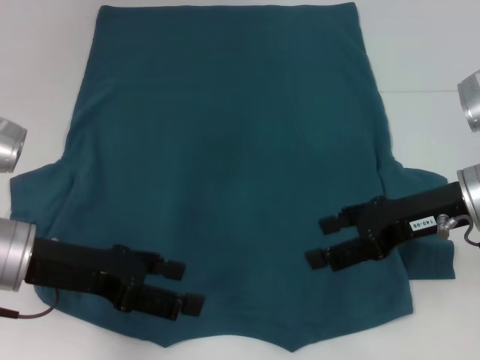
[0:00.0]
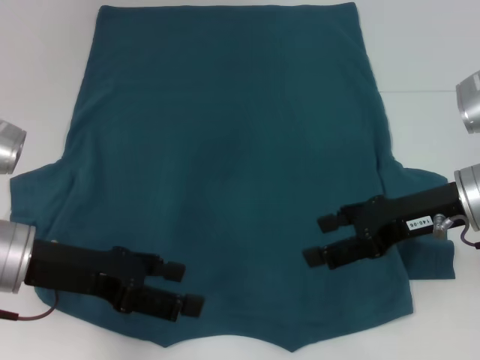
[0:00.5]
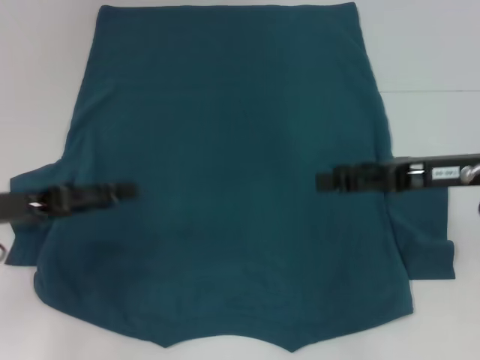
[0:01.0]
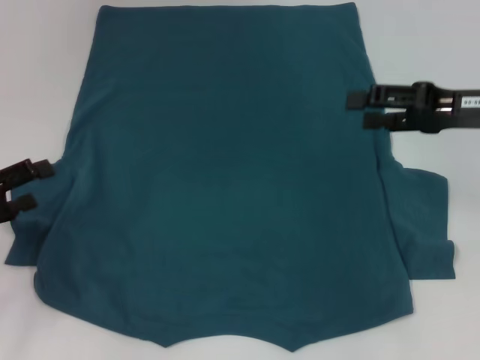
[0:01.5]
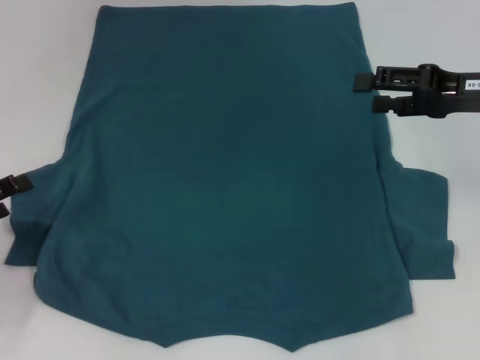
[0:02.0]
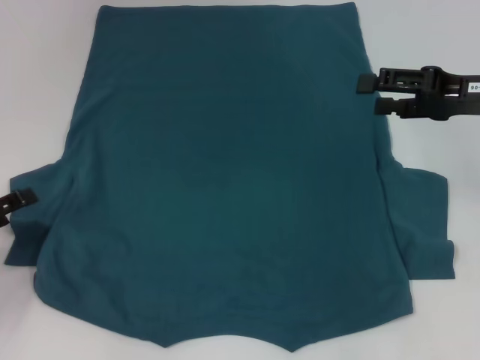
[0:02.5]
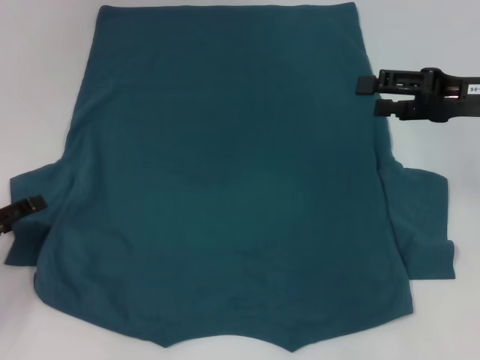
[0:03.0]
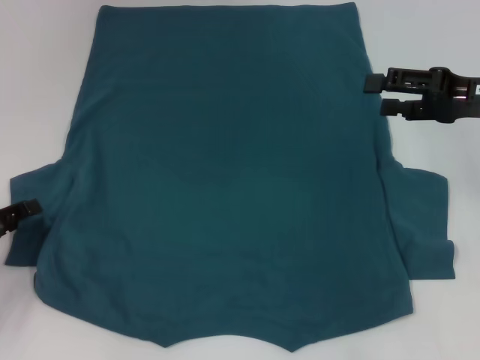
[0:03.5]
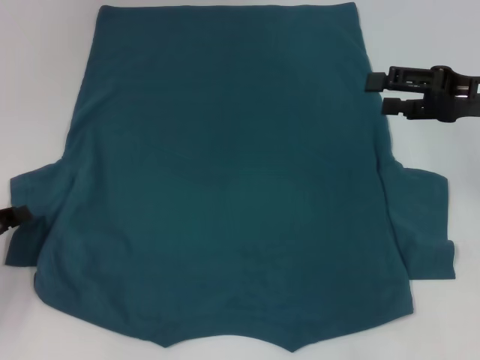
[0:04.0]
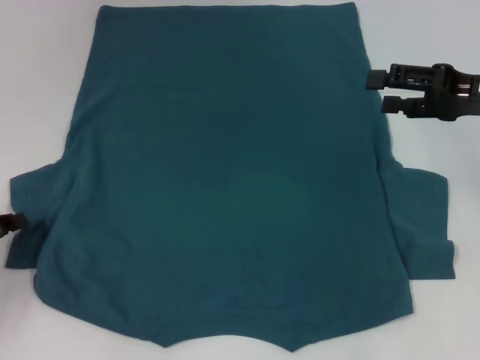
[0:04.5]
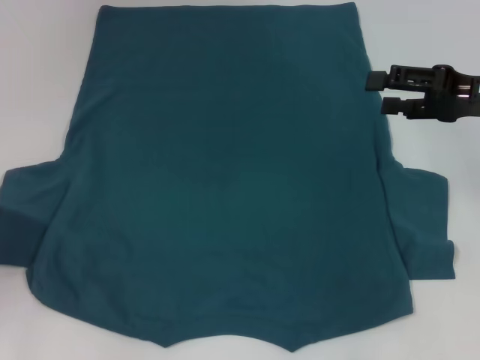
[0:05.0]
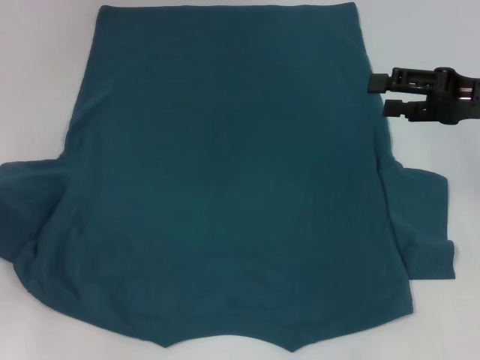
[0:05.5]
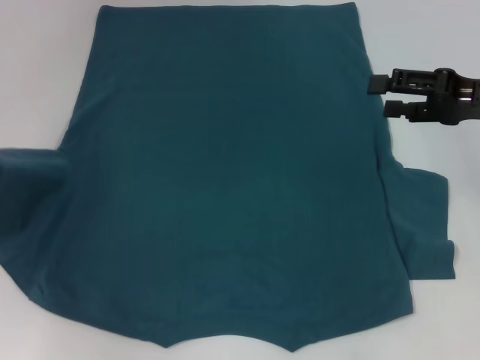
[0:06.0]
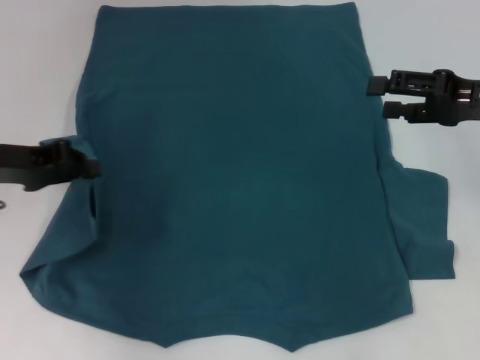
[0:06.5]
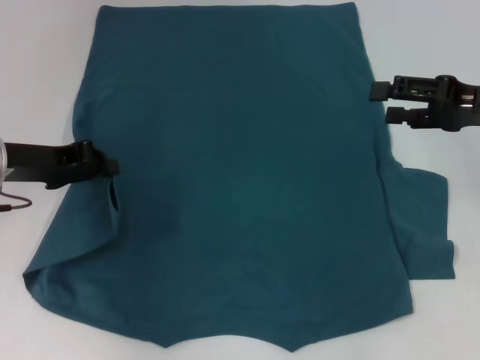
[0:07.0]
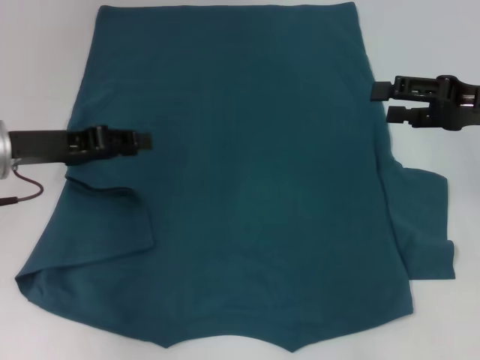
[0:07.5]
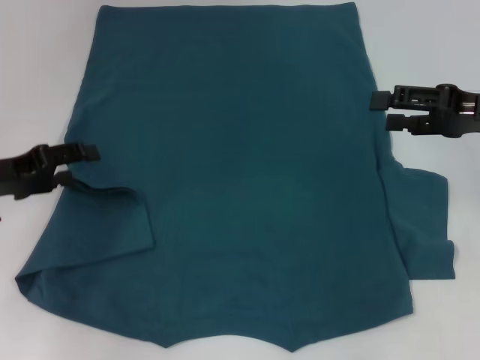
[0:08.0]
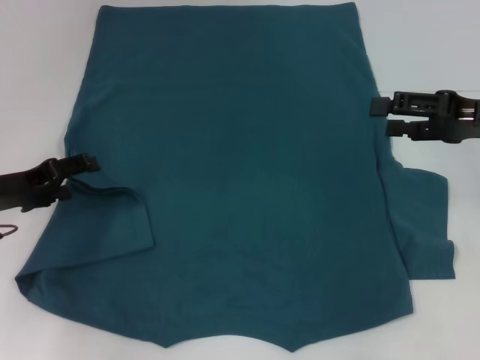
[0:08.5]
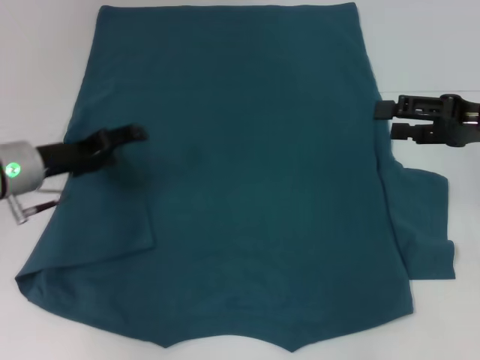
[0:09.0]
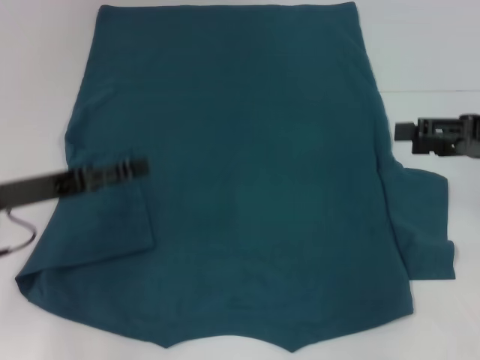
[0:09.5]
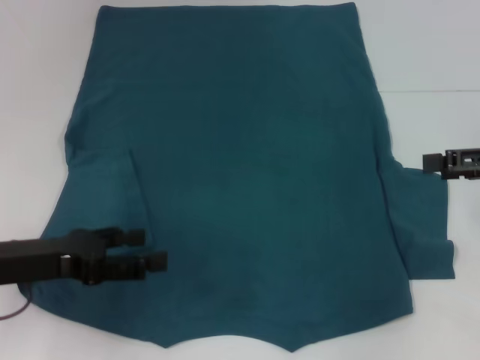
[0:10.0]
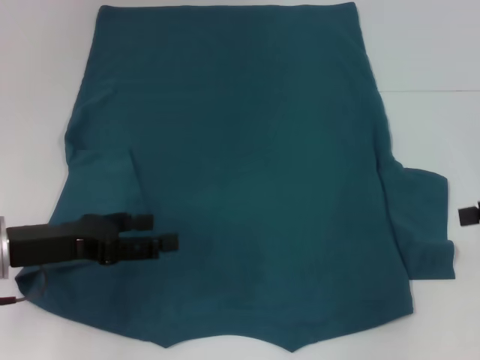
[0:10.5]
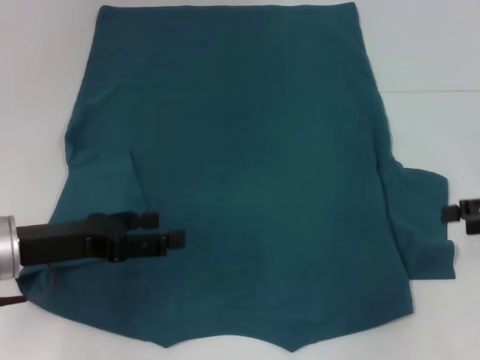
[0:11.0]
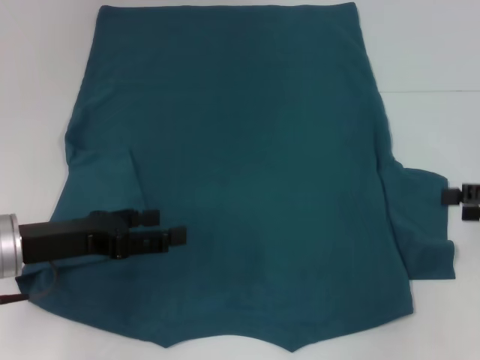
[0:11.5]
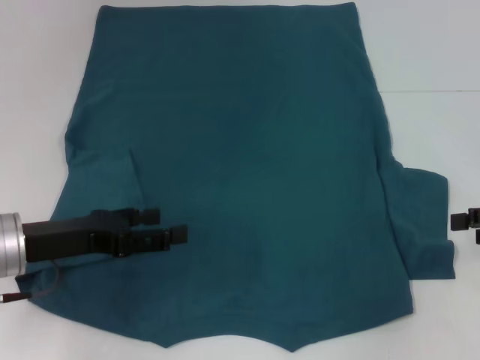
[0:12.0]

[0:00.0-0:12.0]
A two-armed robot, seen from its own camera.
Step, 0:00.0 to 0:09.0: Fold the bottom left sleeve with your left hand.
0:00.0 to 0:02.0: The right gripper heads to the right and forward, covering some 10 cm. Meanwhile the left gripper shifts approximately 15 cm to the left.
0:02.0 to 0:04.0: The left gripper closes its fingers.
0:04.0 to 0:06.0: The left gripper travels upward by about 10 cm, and closes up.
0:06.0 to 0:08.0: The left gripper shifts about 5 cm to the right, and opens its fingers.
0:08.0 to 0:10.0: The left gripper travels backward by approximately 5 cm, while the right gripper moves roughly 5 cm.
0:10.0 to 0:12.0: The right gripper moves roughly 5 cm.

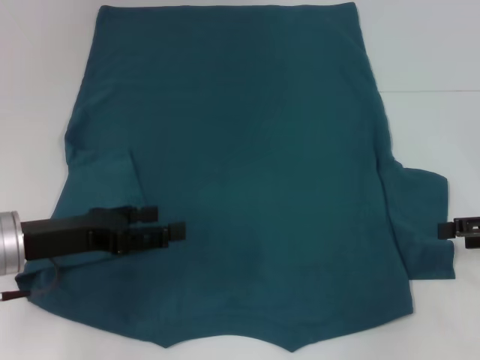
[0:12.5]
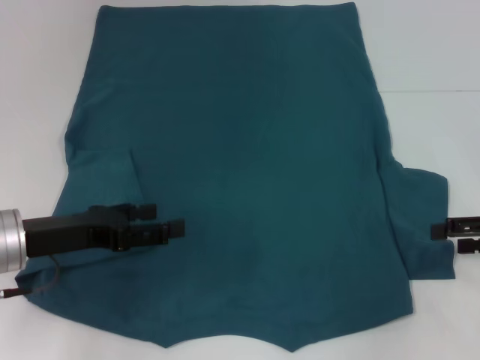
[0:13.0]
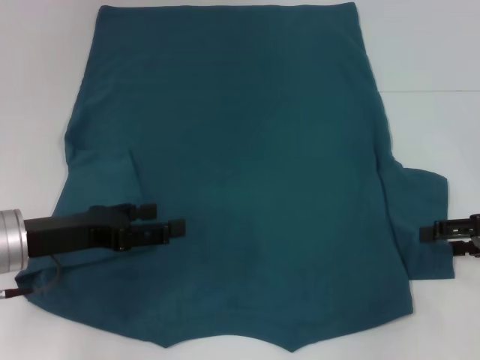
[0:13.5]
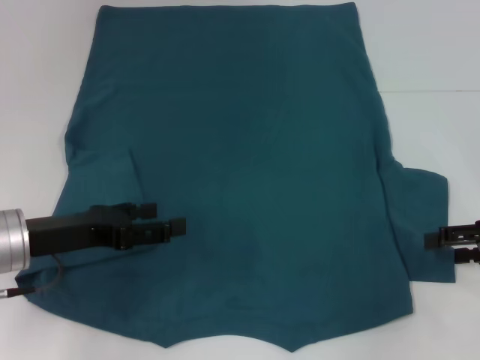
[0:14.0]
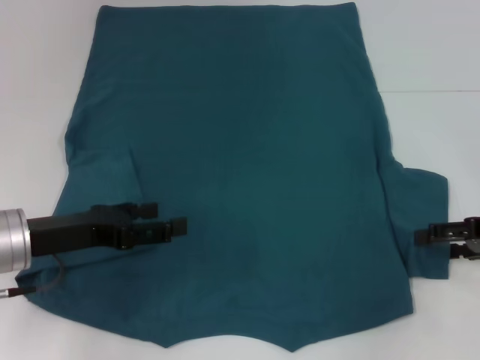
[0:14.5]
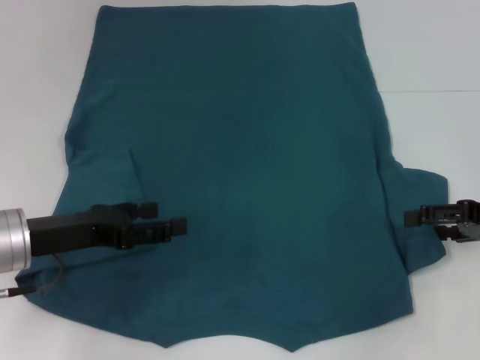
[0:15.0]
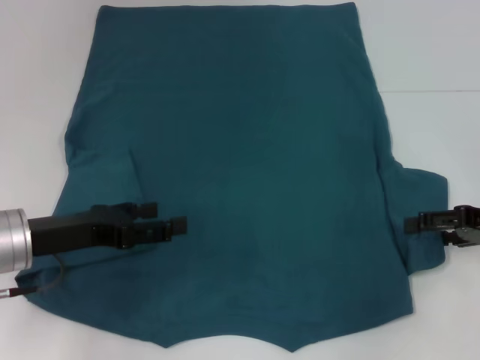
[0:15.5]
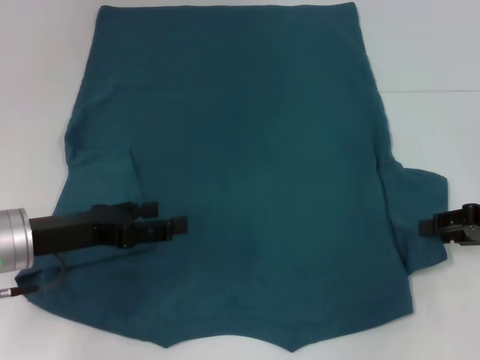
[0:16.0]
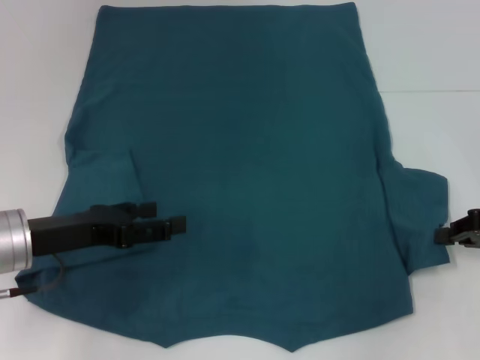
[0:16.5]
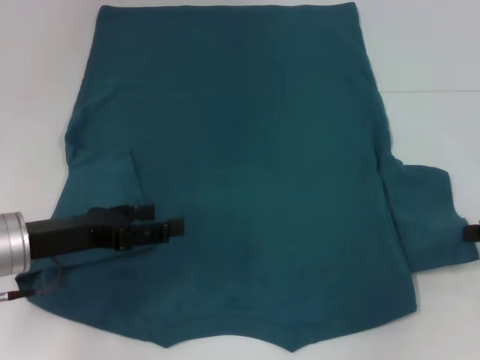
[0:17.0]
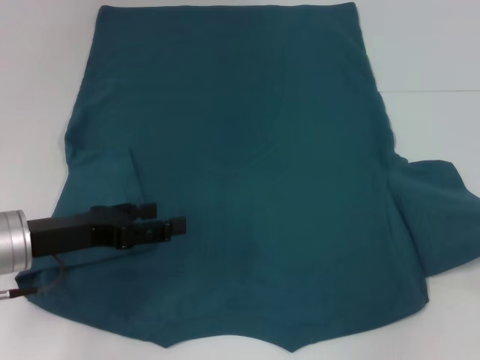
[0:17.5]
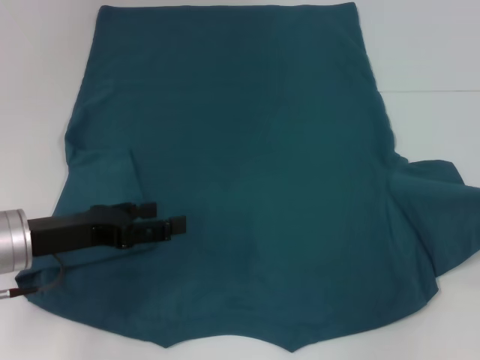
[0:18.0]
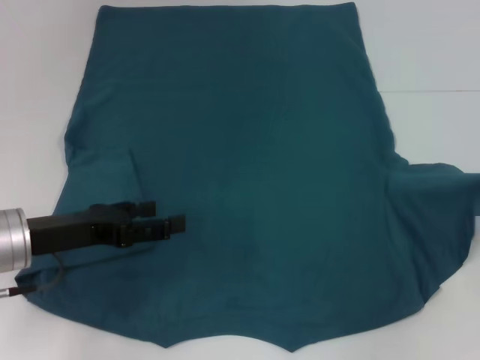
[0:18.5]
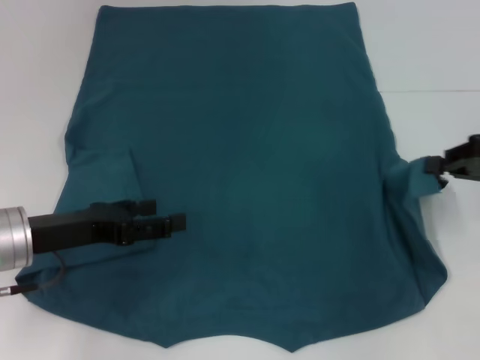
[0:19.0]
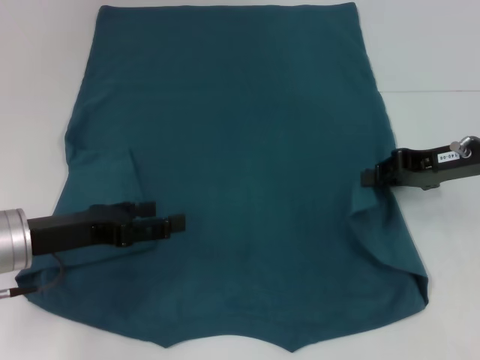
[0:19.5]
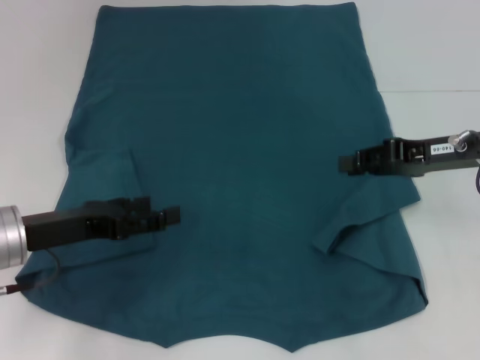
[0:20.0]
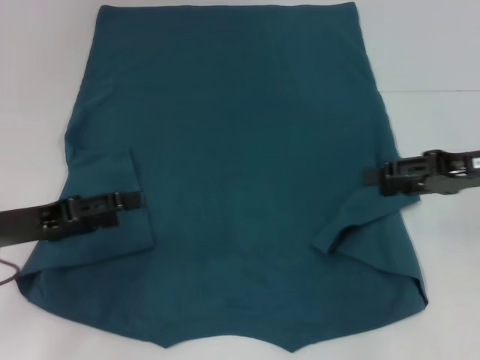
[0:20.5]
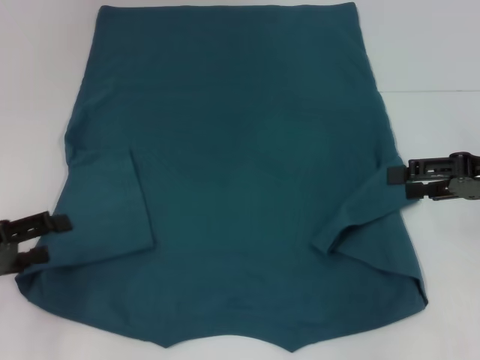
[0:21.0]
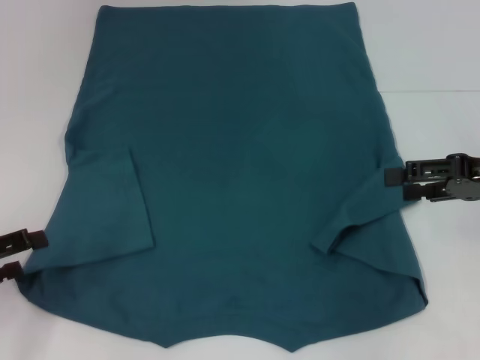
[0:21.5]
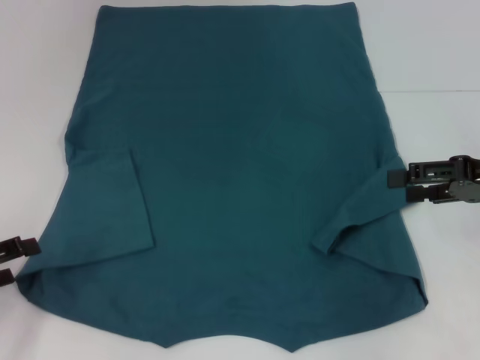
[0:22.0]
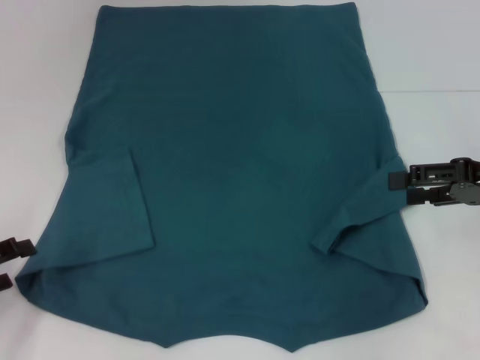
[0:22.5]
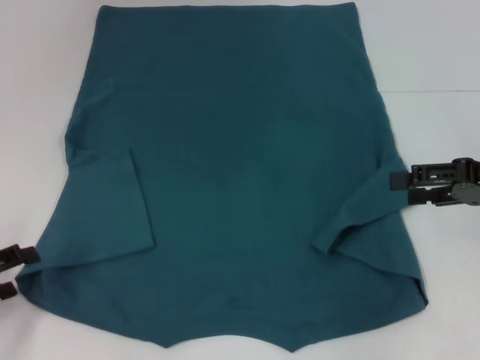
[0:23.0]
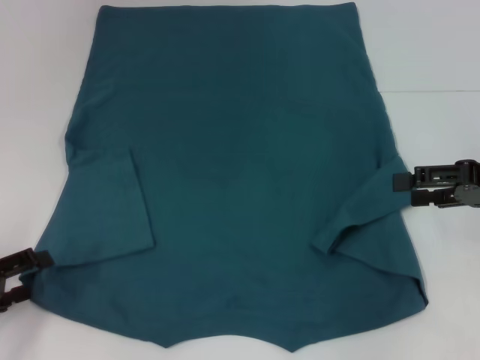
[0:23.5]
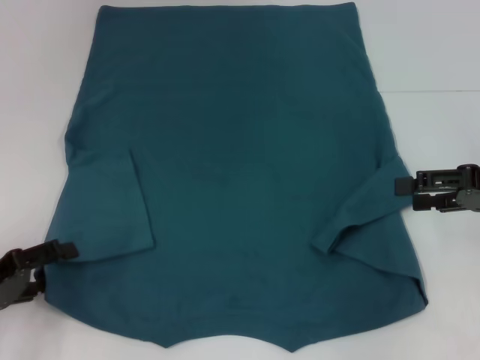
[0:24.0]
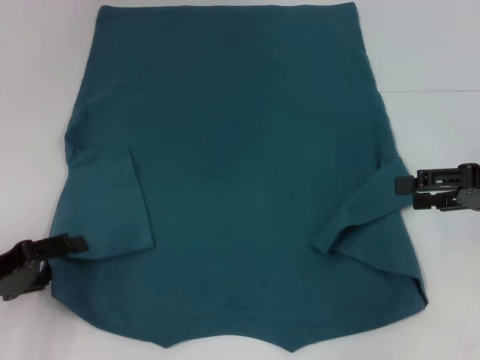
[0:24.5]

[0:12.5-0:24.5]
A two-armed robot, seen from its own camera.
Step, 0:12.5 to 0:20.0: Fold the bottom right sleeve to the right.
0:12.5 to 0:14.5: The grippers make only small movements.
0:14.5 to 0:16.5: The right gripper closes up.
0:16.5 to 0:18.5: The right gripper heads to the right and upward, covering about 10 cm.
0:18.5 to 0:20.5: The right gripper is displaced to the left by about 10 cm, and opens.
0:20.5 to 0:22.5: The right gripper opens up. Meanwhile the left gripper heads to the left and backward, covering about 10 cm.
0:22.5 to 0:24.5: The grippers stay close to where they were, moving slightly.

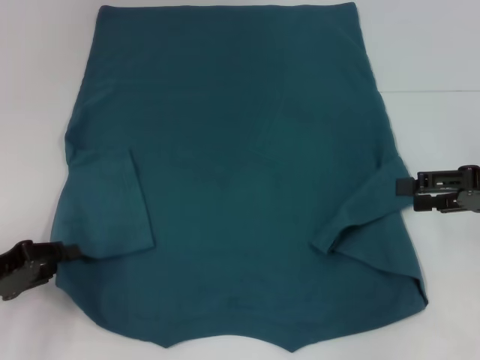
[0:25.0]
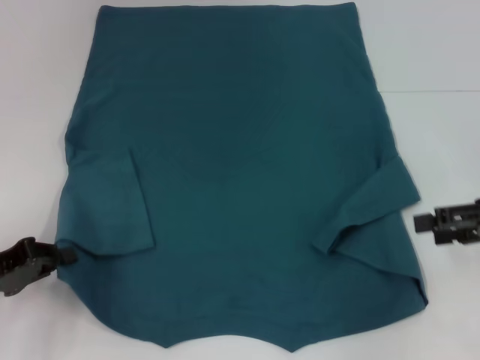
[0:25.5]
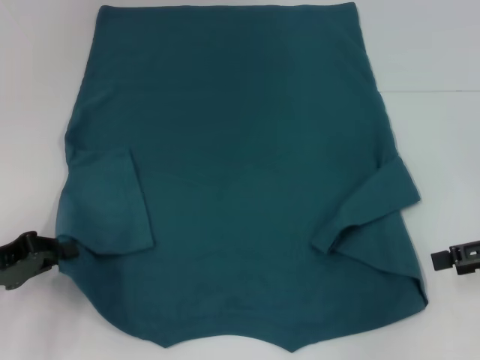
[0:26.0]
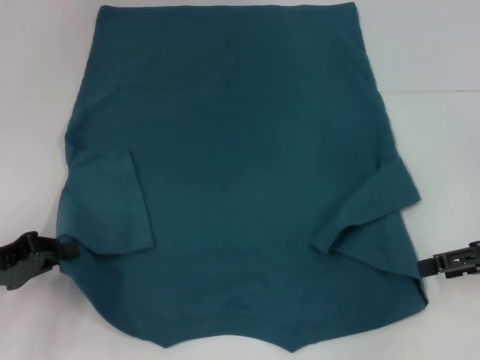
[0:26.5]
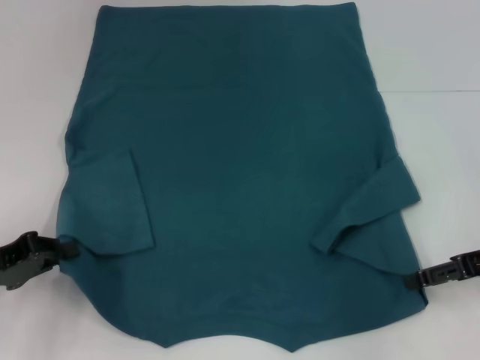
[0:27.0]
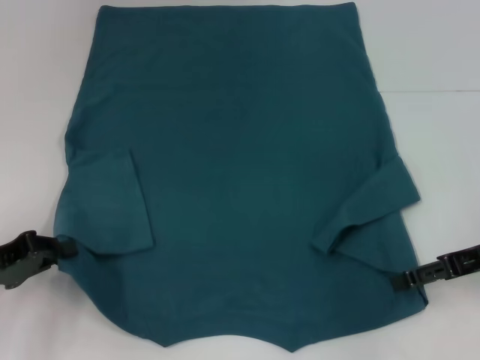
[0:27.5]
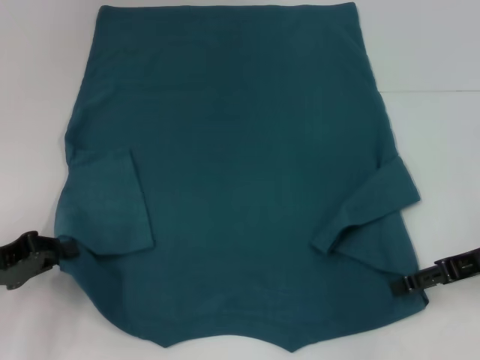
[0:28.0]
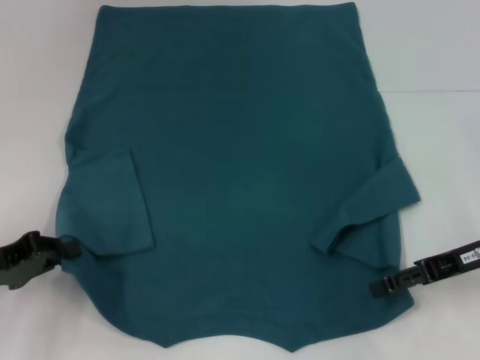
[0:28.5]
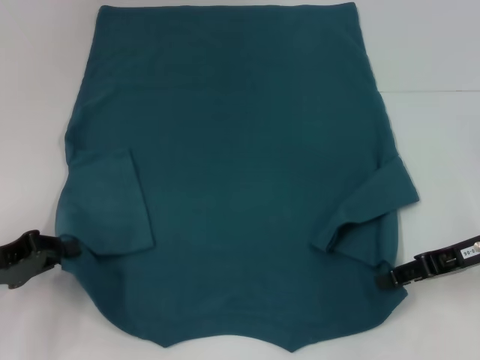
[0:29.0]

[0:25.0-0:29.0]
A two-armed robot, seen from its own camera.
0:25.0 to 0:27.0: The left gripper closes its fingers.
0:27.0 to 0:29.0: There are only small adjustments of the grippers.
